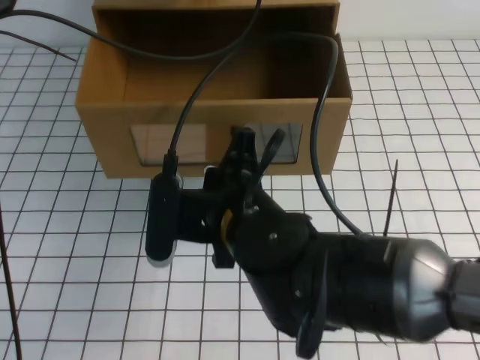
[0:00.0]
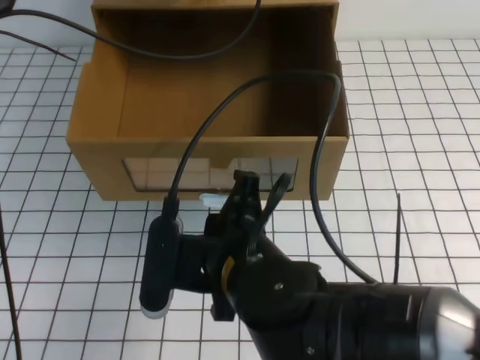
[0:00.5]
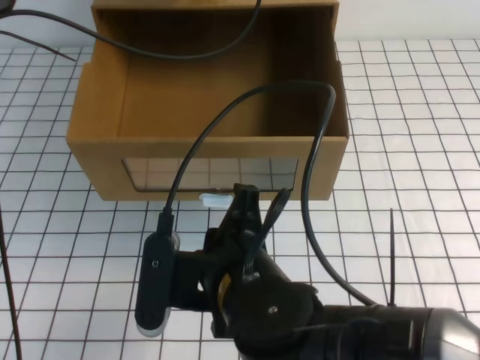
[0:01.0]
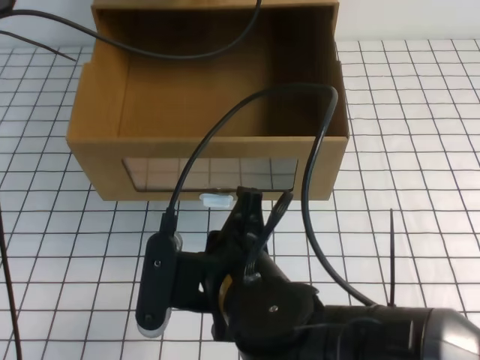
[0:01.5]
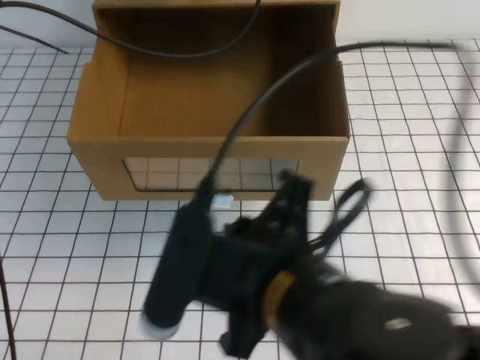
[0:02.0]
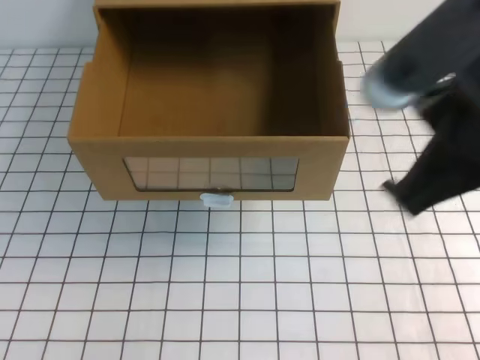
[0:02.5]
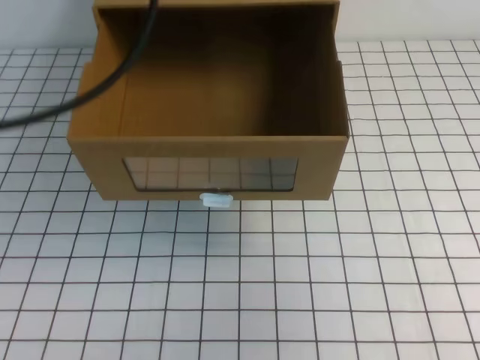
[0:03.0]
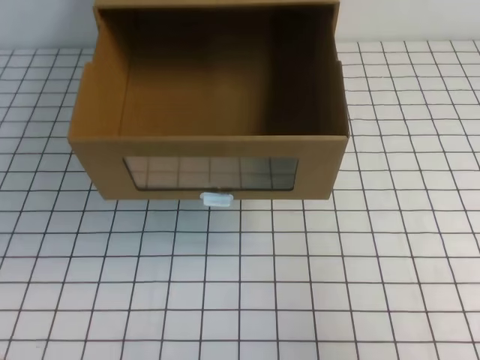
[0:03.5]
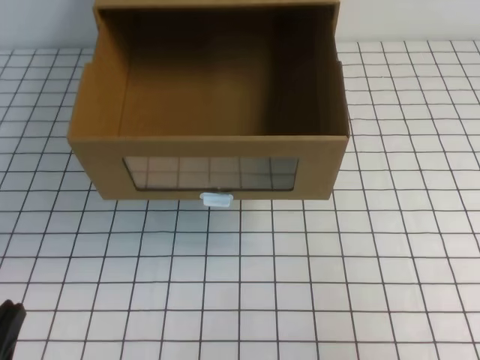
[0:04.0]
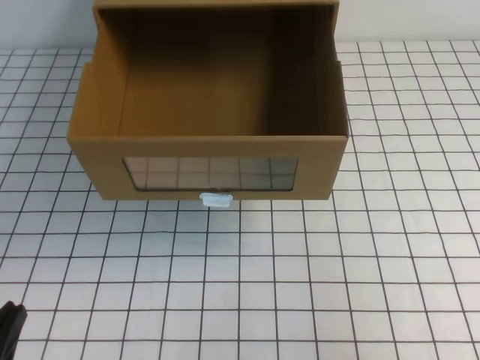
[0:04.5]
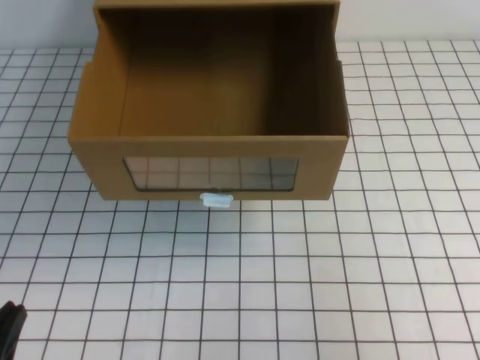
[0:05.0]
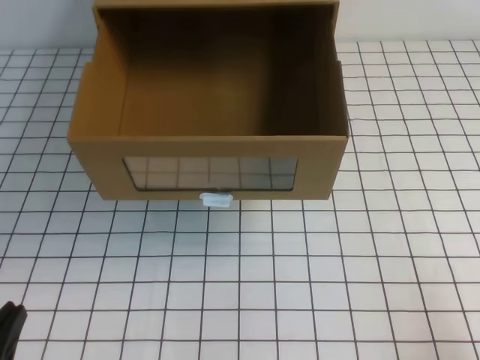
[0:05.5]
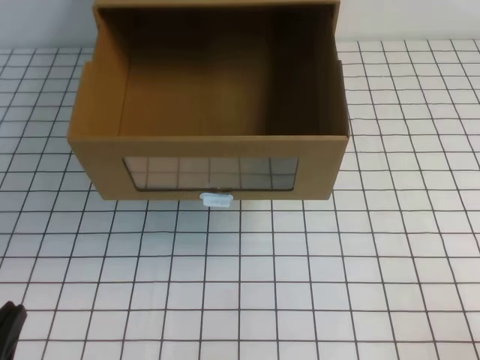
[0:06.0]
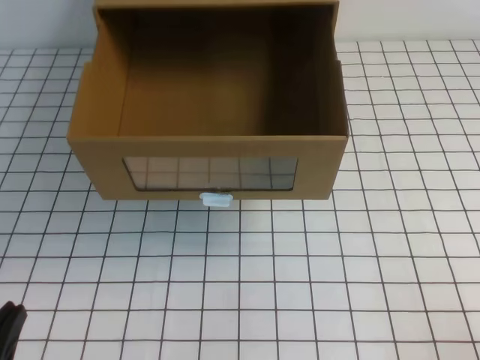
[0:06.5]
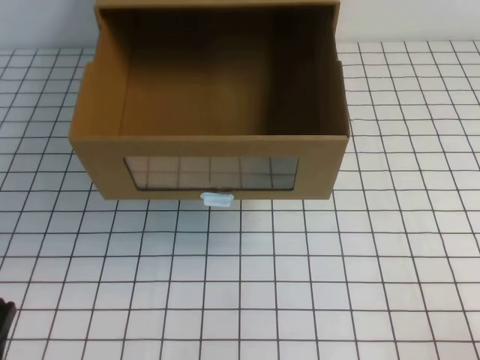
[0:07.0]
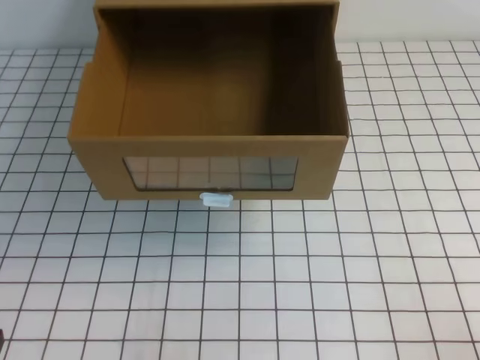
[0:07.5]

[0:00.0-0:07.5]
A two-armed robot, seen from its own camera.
Task of the whole recording: open the shoebox on the white tablecloth.
Step, 0:00.0 to 0:07.5: Open the shoe box.
0:00.0 to 0:02.0: The right gripper heads backward, covering roughly 10 cm.
0:02.0 to 0:04.0: The right gripper moves to the right, about 25 cm, while the left gripper is displaced backward and downward by some 40 cm.
0:04.0 to 0:05.5: The right gripper is displaced downward by some 5 cm.

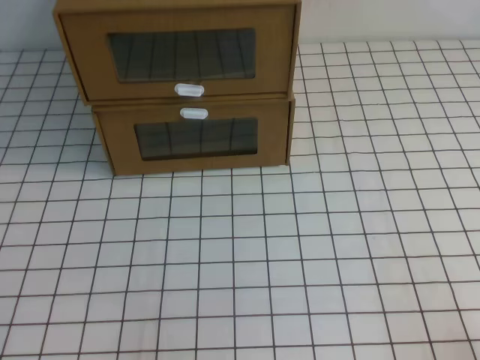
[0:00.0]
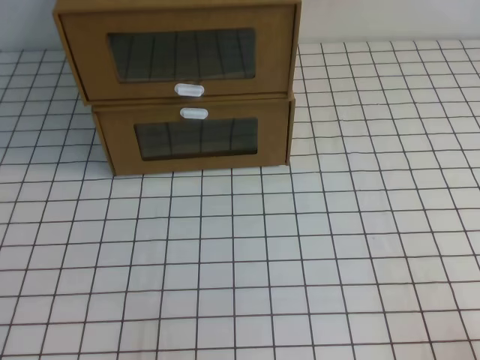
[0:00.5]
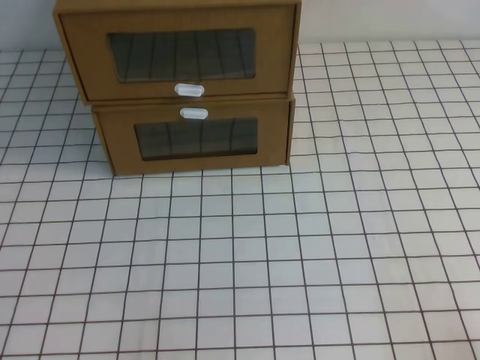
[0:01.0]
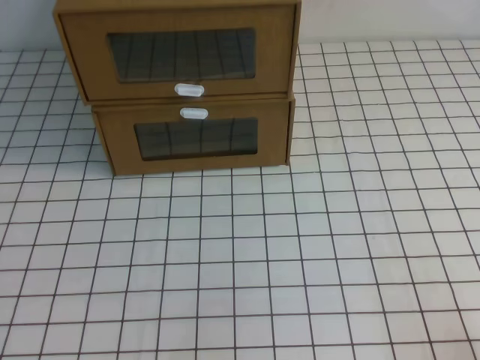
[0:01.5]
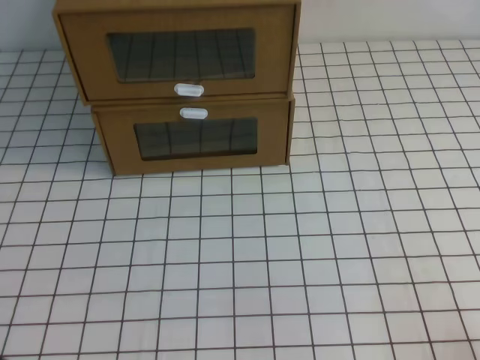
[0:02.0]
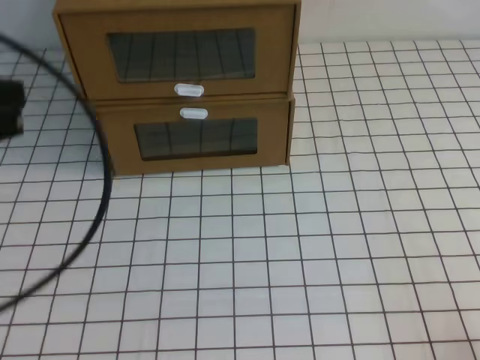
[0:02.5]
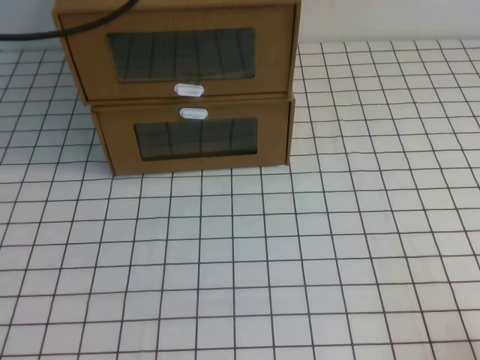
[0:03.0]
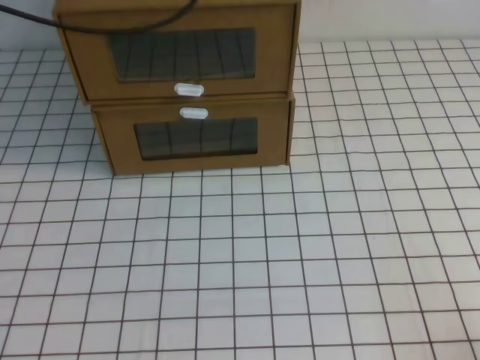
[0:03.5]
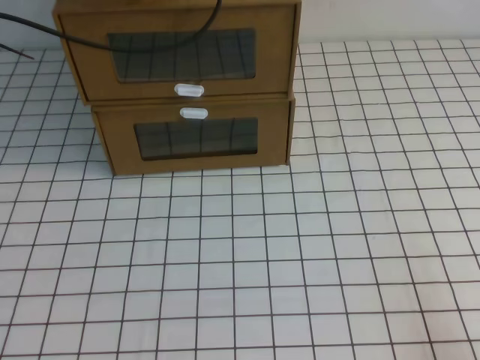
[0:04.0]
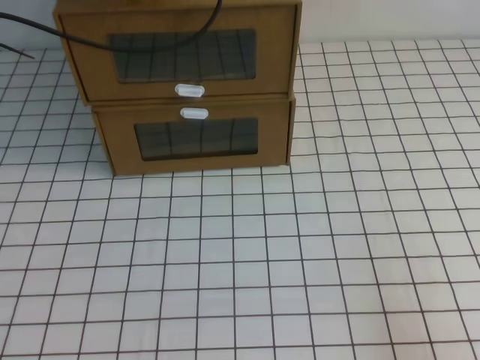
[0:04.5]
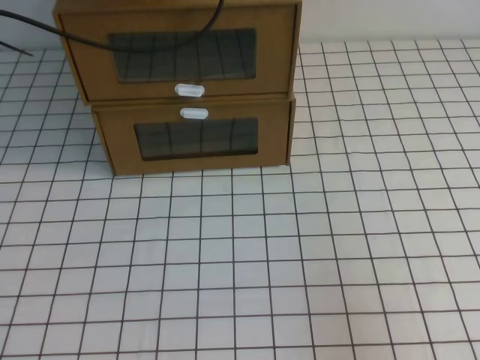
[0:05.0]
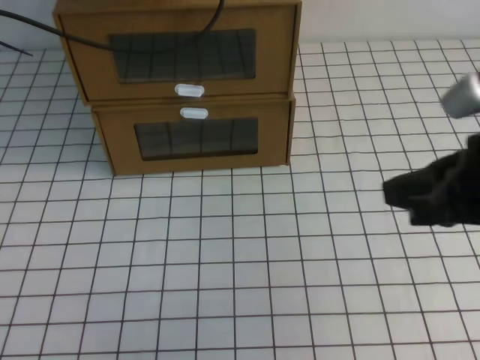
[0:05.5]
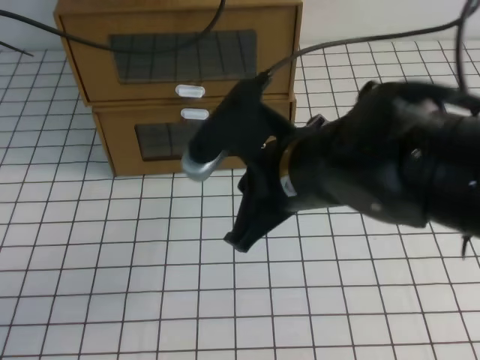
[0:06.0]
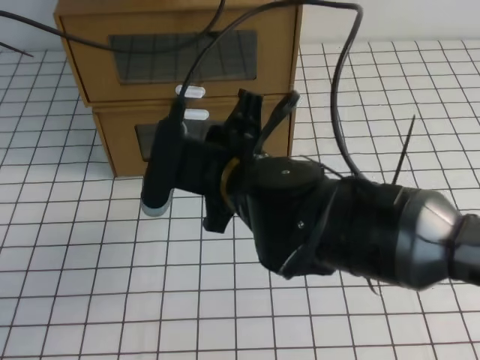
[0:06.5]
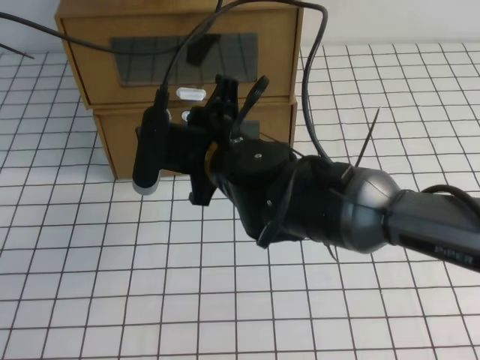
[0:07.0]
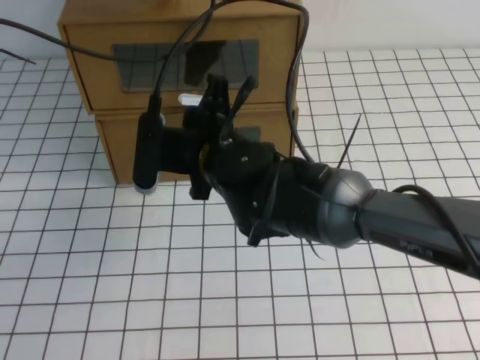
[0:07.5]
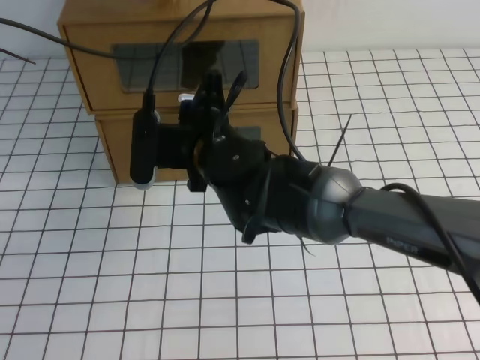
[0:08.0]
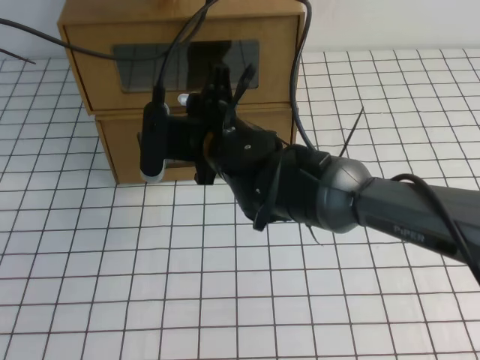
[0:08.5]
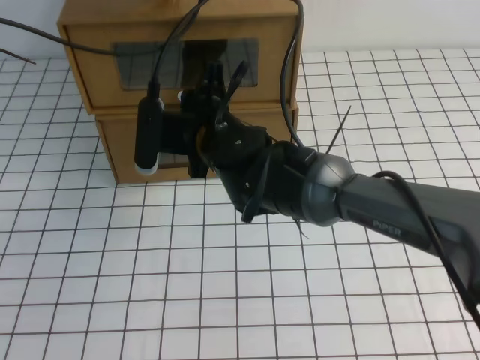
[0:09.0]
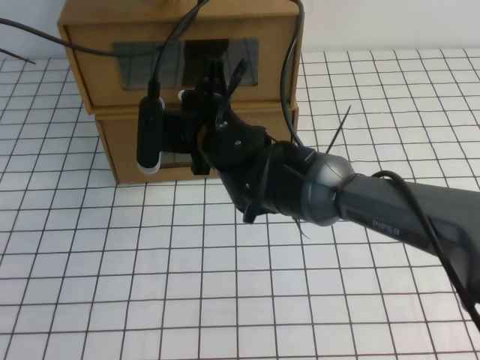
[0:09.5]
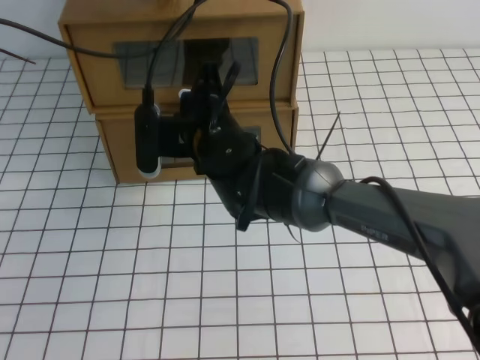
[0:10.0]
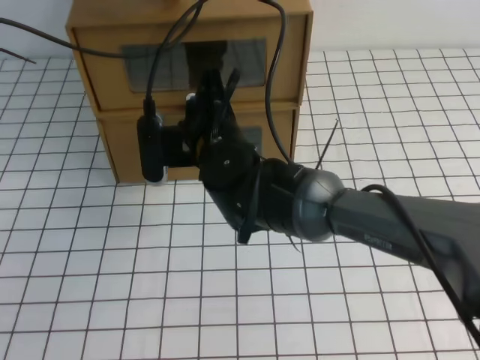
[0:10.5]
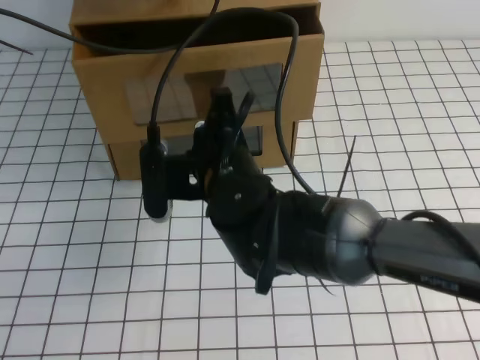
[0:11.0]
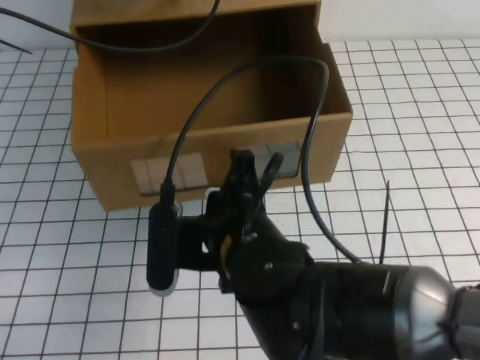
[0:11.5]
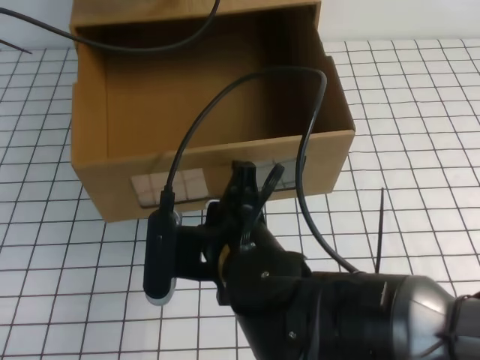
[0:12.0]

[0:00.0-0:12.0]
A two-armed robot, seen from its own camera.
Task of the whole recording: open the shoebox on the white tablecloth.
0:02.0 to 0:04.0: The left gripper goes roughly 40 cm forward and upward.
0:04.0 to 0:06.0: The right gripper is displaced to the left, forward and upward by roughly 30 cm.
0:06.0 to 0:08.0: The right gripper shifts approximately 20 cm to the left, forward and downward, and opens up.
0:08.0 to 0:10.0: The right gripper closes.
0:10.0 to 0:12.0: The right gripper travels backward by about 15 cm.

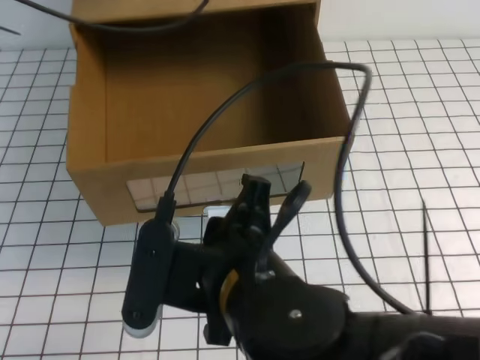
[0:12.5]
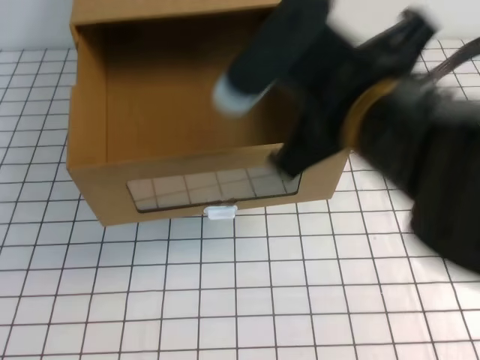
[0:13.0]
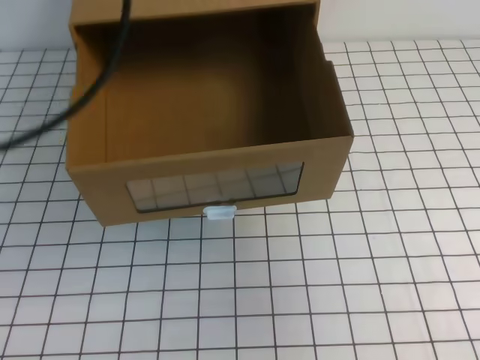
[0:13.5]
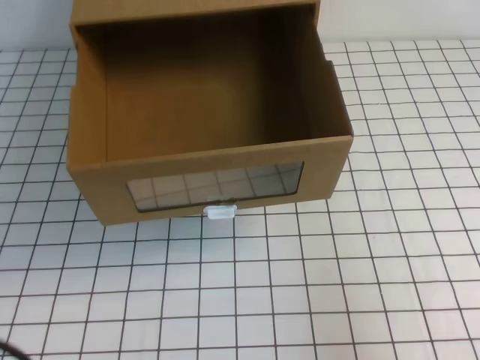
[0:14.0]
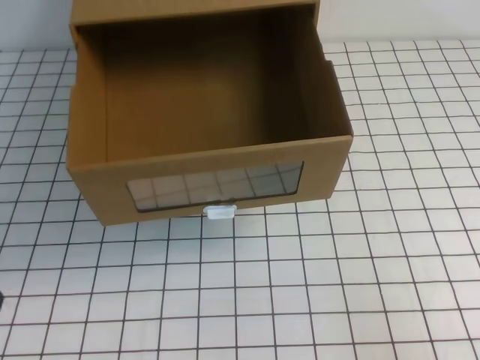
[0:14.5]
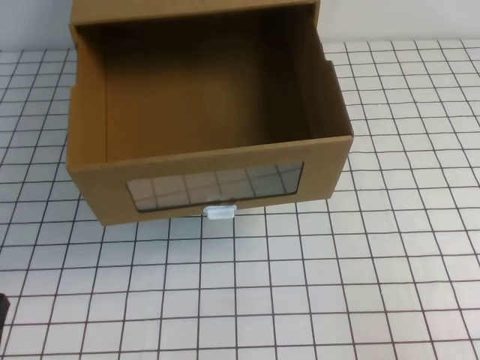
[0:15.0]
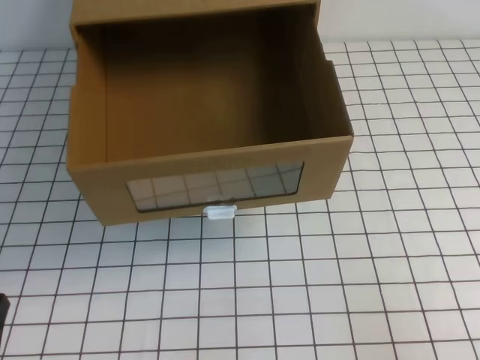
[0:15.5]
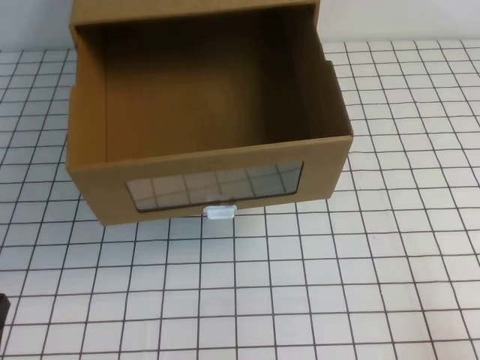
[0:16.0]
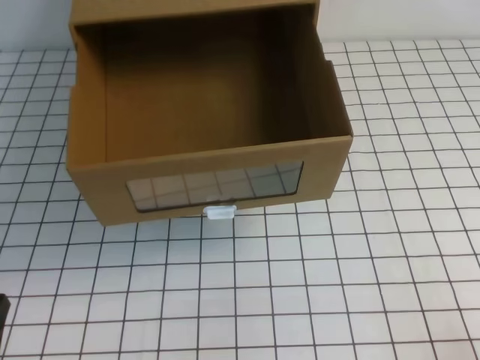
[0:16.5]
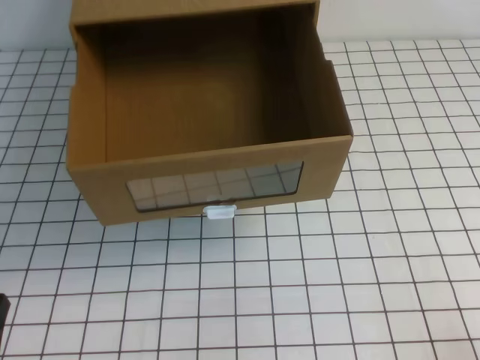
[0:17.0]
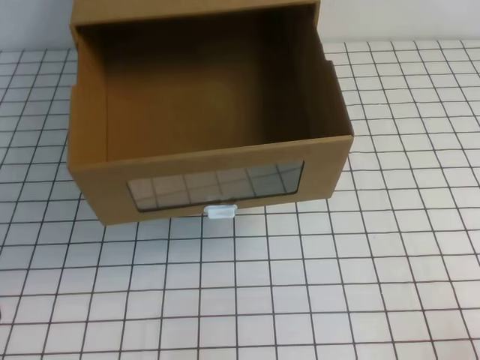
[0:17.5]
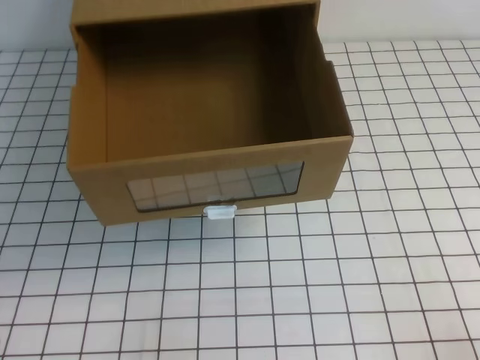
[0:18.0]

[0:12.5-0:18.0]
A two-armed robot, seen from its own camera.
Task of the whole recording: open the shoebox on the white tablecloth.
Step, 0:12.5 to 0:18.0: Open the shoe box.
0:12.5 to 0:14.5: The right gripper moves to the right, approximately 30 cm, and closes its fingers; the left gripper goes roughly 40 cm backward and downward.
